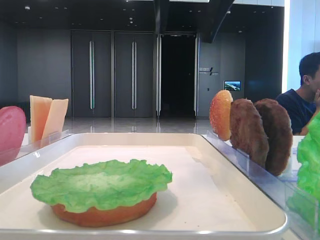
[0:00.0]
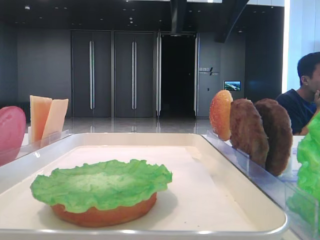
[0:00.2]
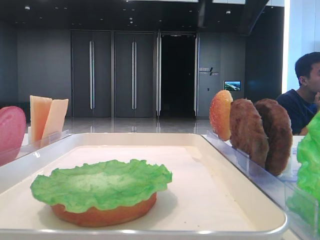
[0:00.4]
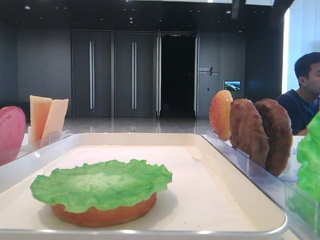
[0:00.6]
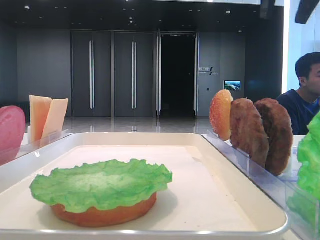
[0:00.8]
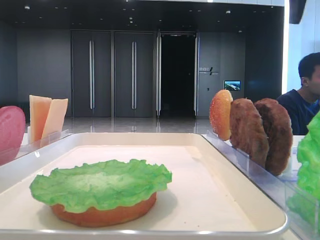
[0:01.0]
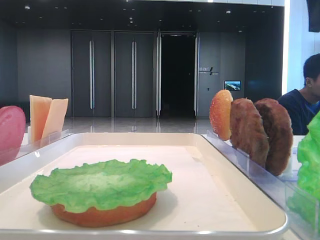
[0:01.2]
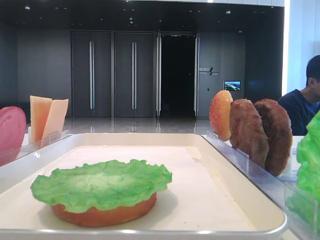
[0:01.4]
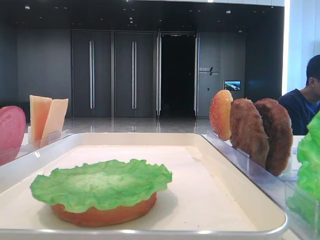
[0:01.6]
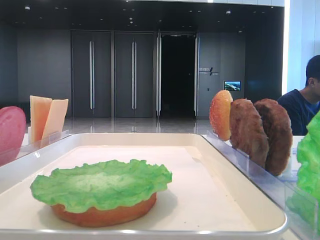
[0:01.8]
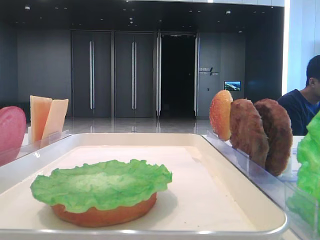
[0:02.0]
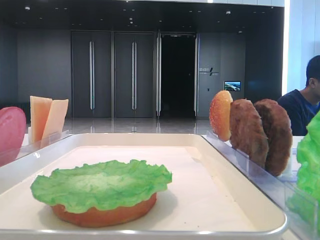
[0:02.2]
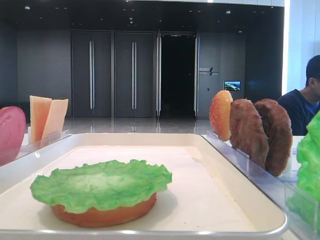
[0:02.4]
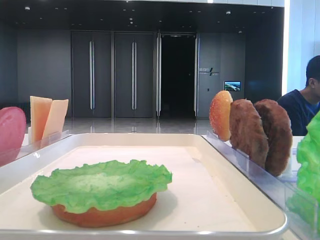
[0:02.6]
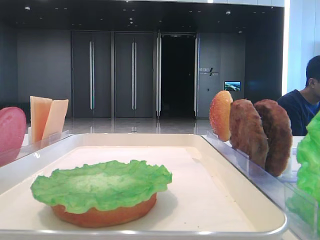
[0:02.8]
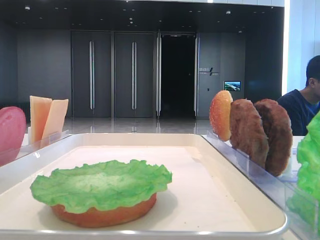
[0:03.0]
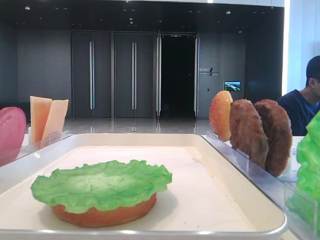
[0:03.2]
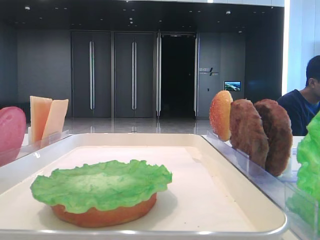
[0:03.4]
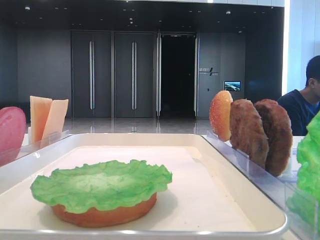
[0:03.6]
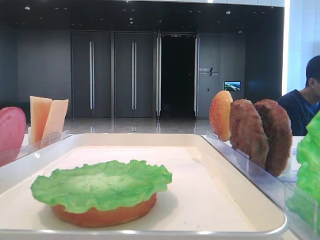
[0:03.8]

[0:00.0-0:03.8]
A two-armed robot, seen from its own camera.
0.0 to 1.2 s: The right gripper shifts approximately 20 cm to the right.
1.2 to 2.6 s: The right gripper shifts approximately 25 cm backward.

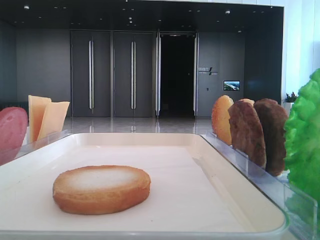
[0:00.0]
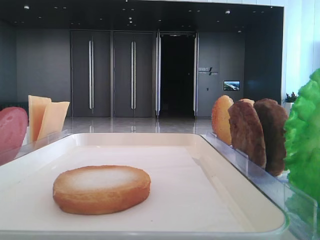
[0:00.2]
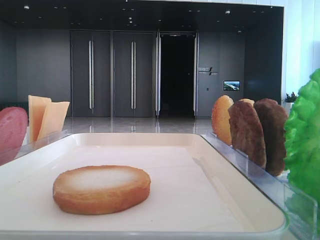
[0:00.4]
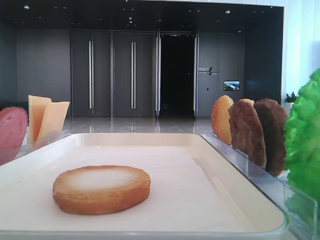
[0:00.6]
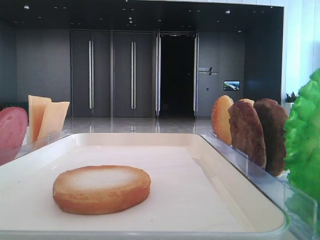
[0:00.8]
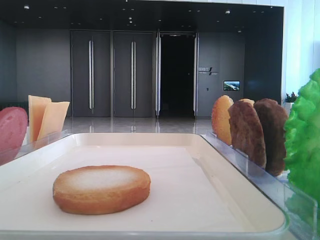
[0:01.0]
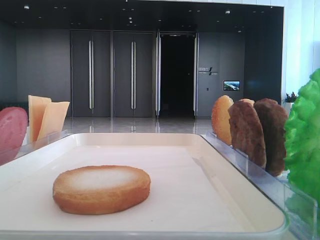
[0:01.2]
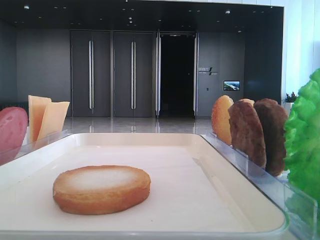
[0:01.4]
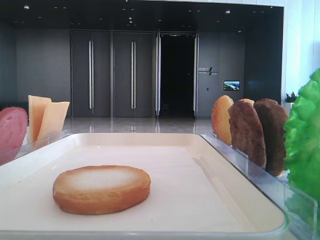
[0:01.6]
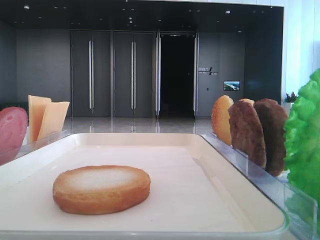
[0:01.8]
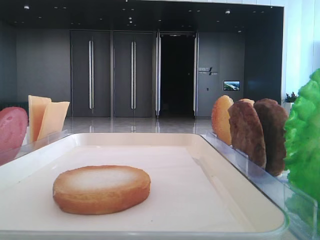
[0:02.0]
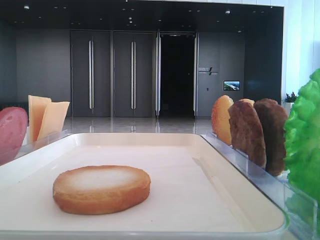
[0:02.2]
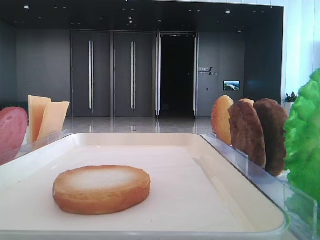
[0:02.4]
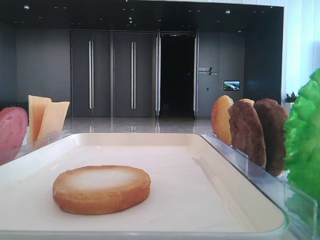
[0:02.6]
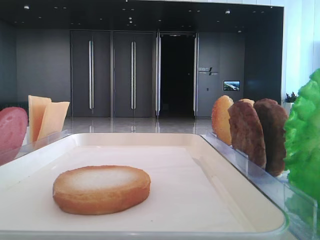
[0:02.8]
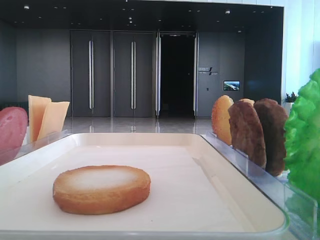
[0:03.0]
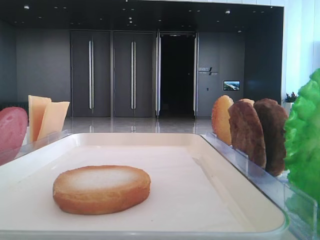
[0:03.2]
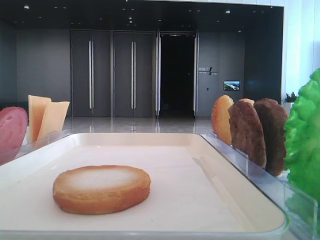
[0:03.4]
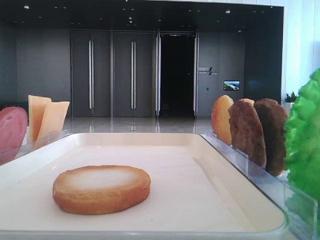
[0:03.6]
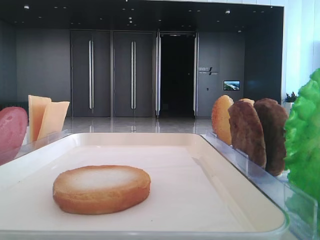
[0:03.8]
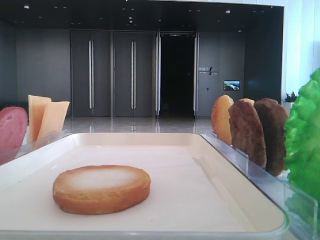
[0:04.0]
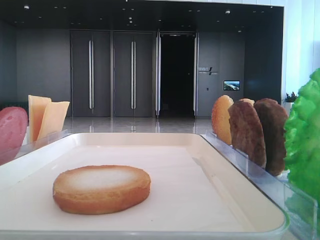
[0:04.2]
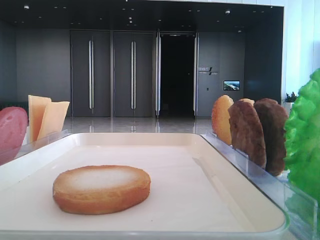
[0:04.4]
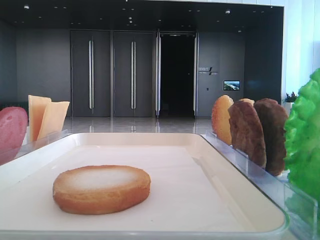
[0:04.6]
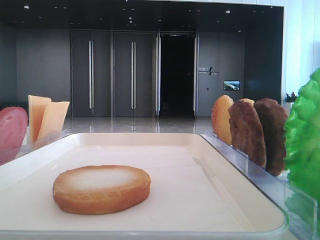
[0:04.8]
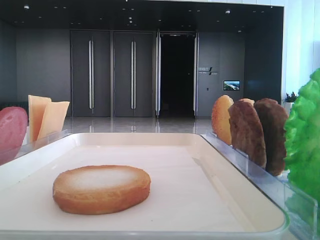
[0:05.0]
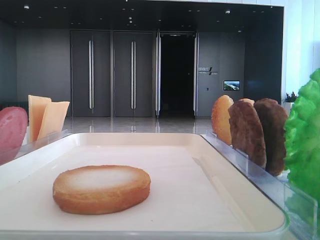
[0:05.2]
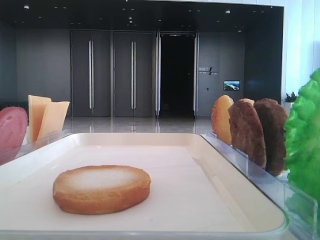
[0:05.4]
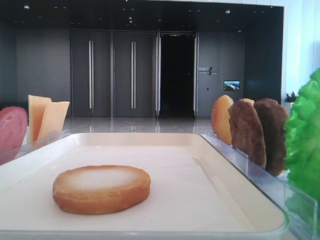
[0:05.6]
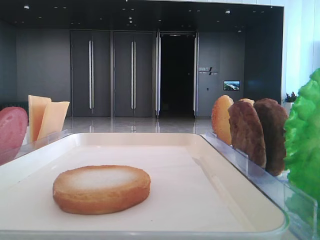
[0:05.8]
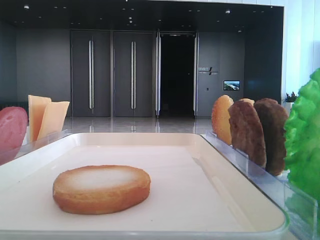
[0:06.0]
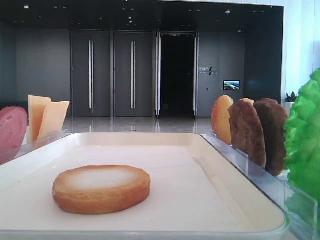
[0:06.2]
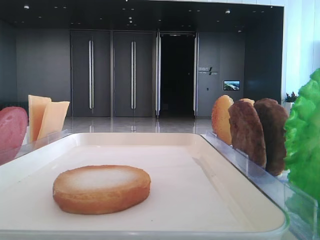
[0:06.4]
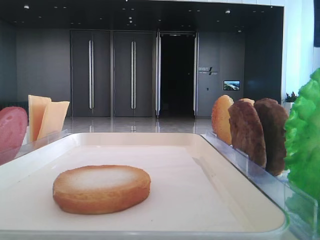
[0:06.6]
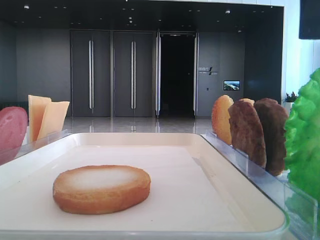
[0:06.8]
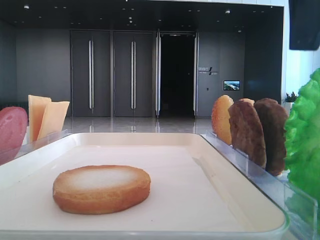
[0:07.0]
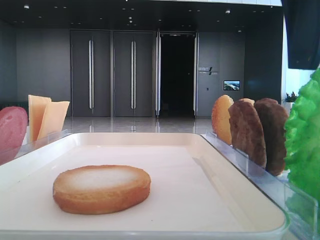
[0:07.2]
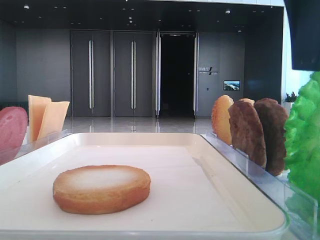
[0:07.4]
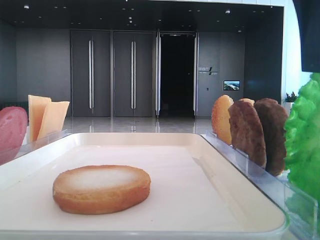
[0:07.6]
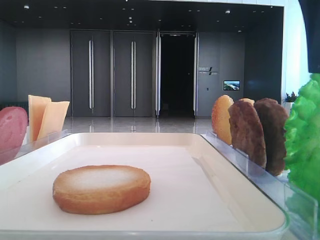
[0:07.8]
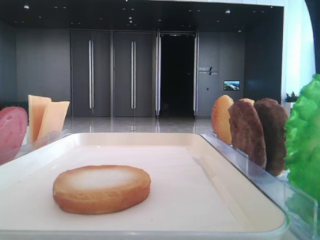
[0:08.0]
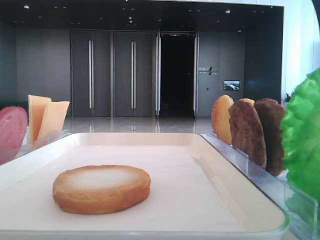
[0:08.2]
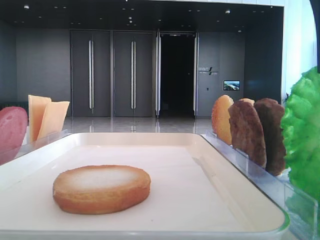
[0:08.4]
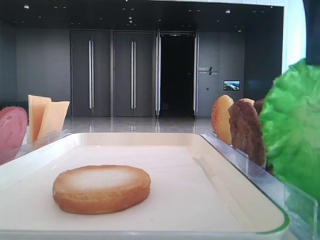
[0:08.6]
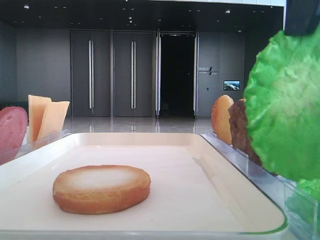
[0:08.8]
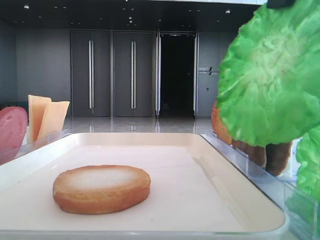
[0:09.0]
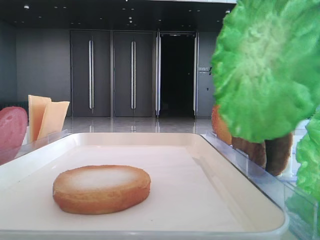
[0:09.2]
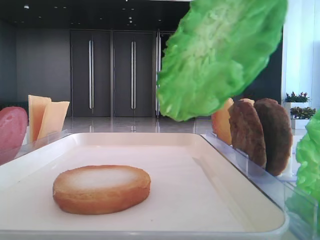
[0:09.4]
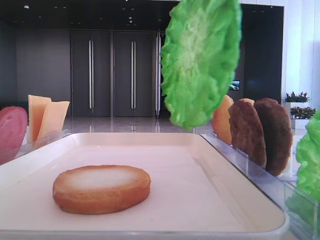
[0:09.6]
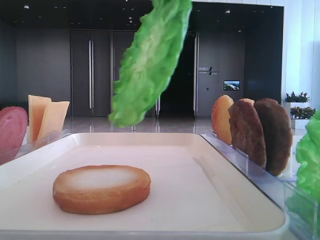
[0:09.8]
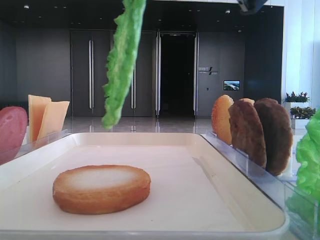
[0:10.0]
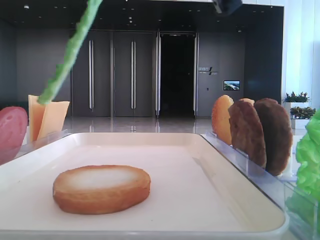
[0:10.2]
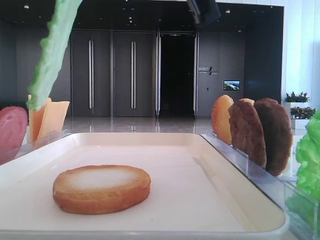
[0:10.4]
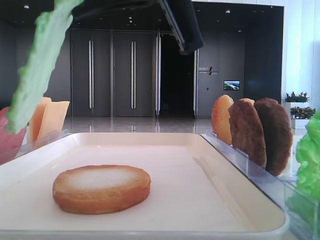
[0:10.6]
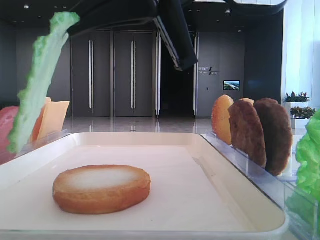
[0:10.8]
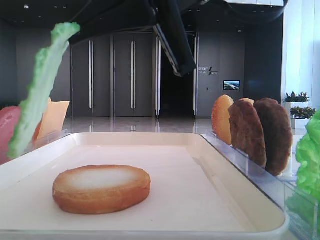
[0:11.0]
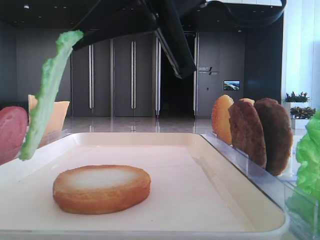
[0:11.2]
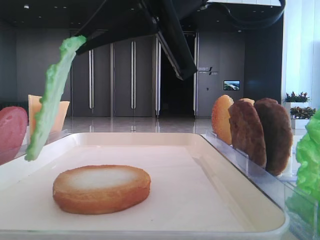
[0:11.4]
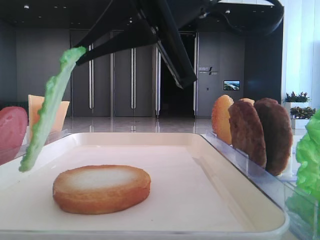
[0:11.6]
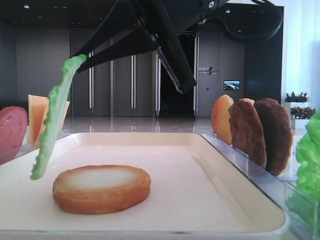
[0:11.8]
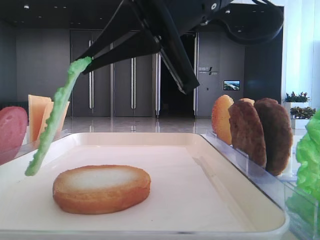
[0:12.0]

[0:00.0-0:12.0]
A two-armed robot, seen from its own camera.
Step, 0.0 to 8.2 s: Grab the lettuce leaf with the right hand.
6.0 to 7.6 s: The right gripper travels to the left by approximately 5 cm.
7.6 to 9.0 s: The right gripper ends up approximately 5 cm from where it was, and closes.
9.0 to 10.4 s: The right gripper heads to the left, covering approximately 10 cm.
10.4 to 12.0 s: The right gripper is displaced downward by roughly 5 cm.

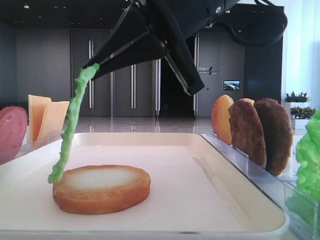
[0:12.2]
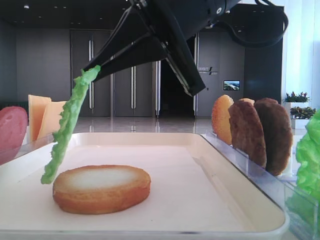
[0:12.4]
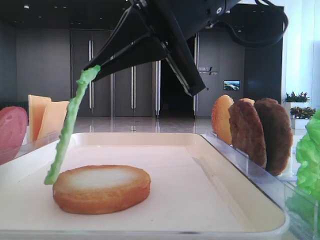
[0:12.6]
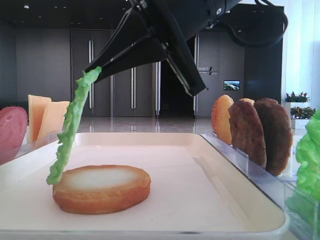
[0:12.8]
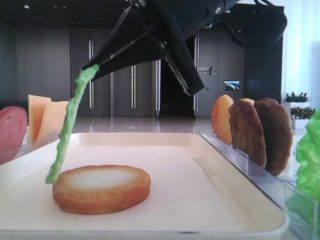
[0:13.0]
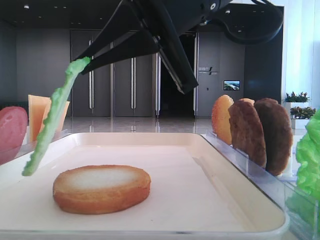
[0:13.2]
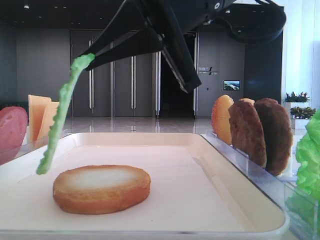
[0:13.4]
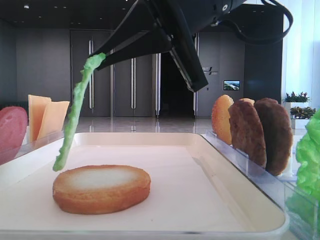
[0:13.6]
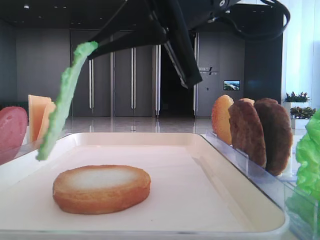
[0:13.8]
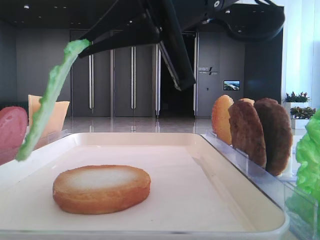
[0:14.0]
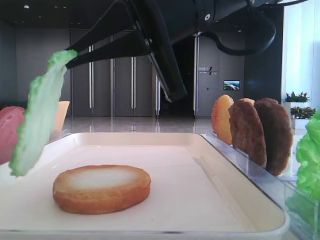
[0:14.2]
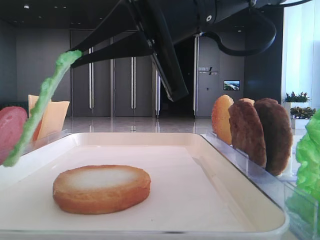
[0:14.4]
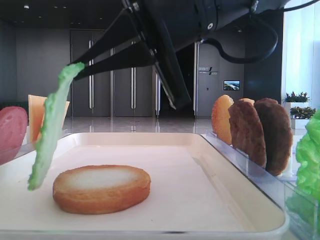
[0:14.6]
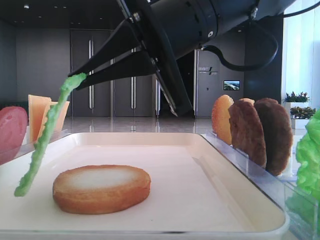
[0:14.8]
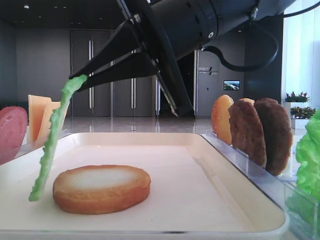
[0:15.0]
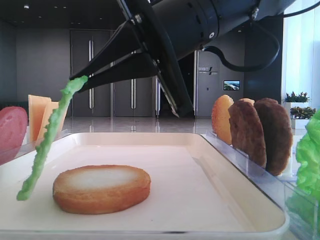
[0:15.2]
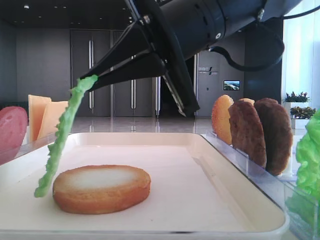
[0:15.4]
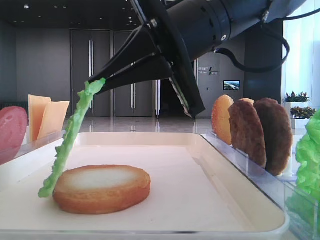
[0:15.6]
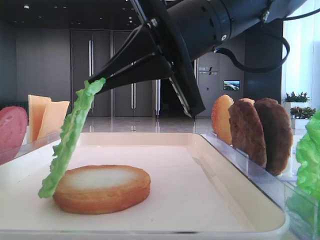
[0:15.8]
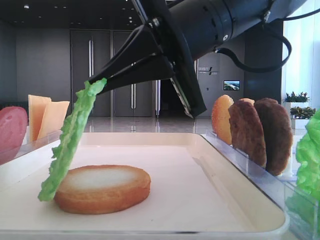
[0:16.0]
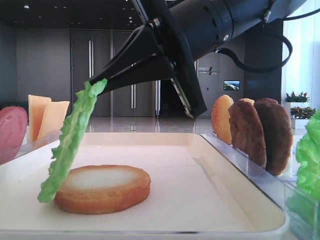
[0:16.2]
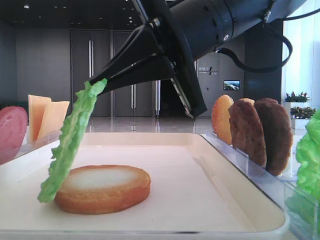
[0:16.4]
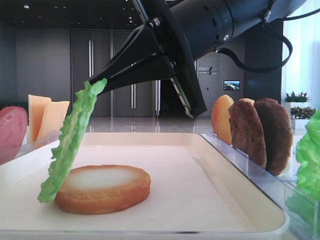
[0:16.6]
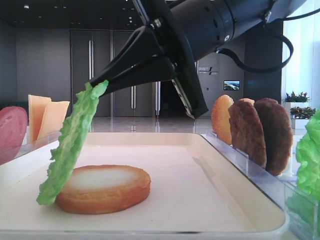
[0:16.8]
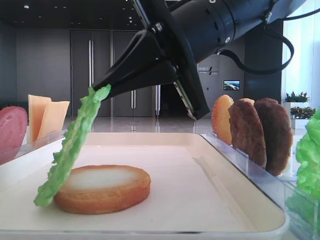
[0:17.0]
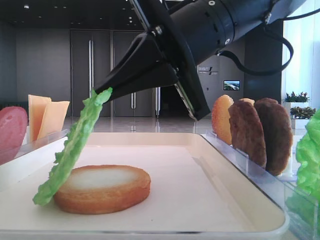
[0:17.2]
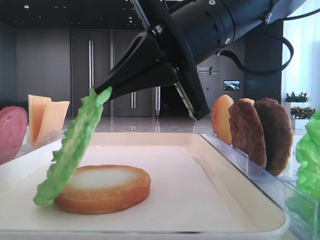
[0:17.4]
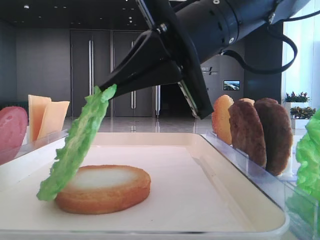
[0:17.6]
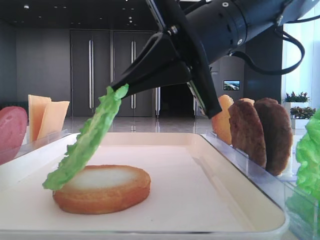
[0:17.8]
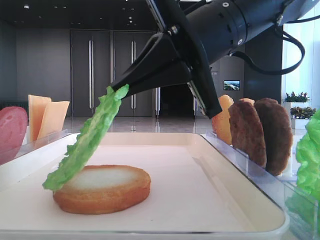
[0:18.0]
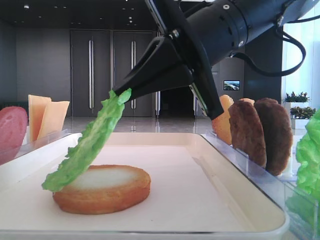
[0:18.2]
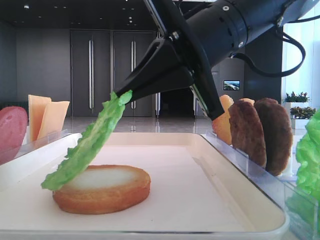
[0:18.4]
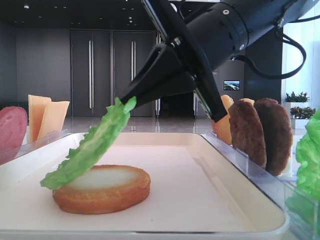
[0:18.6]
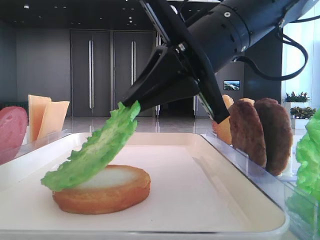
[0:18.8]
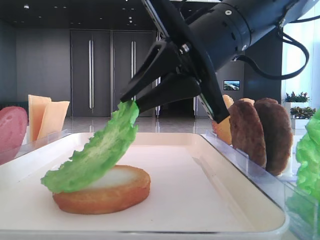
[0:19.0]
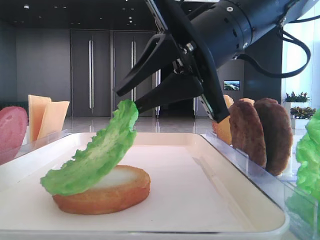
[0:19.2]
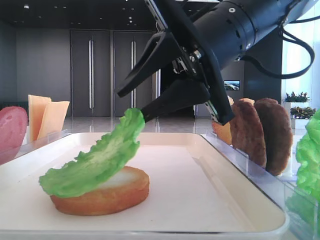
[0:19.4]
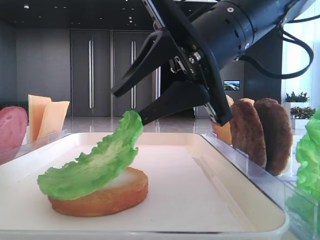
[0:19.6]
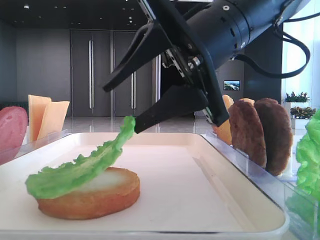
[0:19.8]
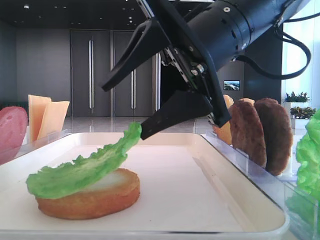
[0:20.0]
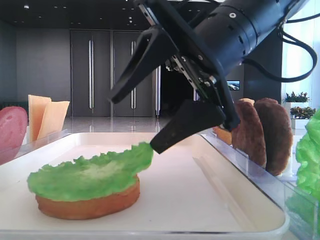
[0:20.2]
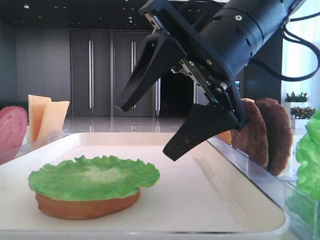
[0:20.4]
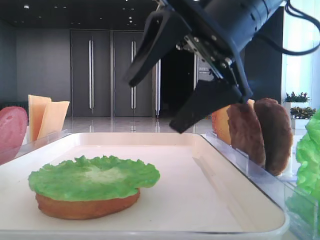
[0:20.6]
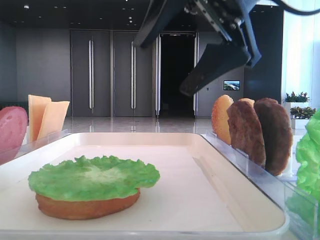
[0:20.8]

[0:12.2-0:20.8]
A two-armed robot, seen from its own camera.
Step, 12.2 to 20.2 s: Place the lettuce leaf on the bottom bread with the right hand.
12.2 to 13.6 s: Both grippers stay put.
13.6 to 18.0 s: The grippers stay close to where they were, moving slightly.
18.0 to 19.4 s: The right gripper opens up.
19.4 to 20.8 s: The right gripper travels upward by some 5 cm, and opens up.
